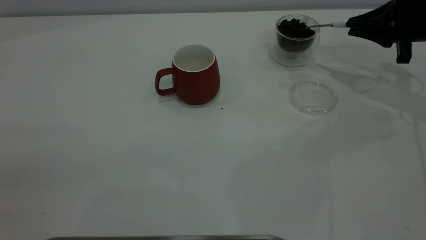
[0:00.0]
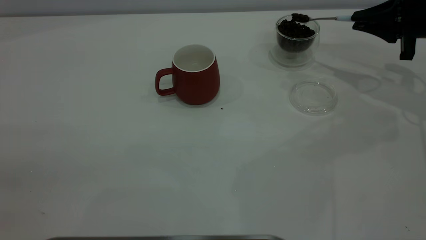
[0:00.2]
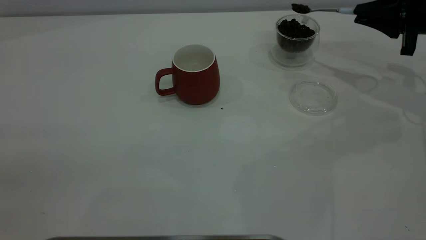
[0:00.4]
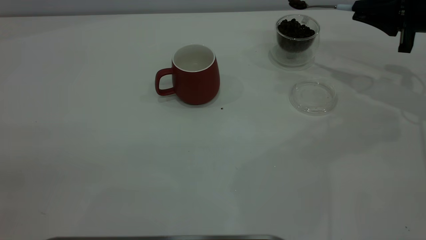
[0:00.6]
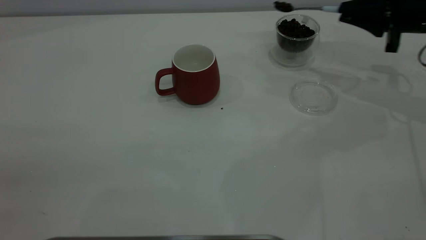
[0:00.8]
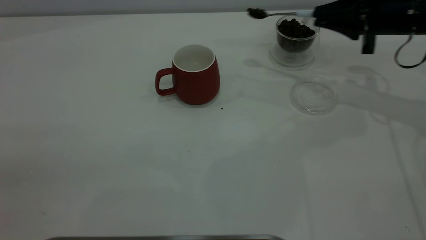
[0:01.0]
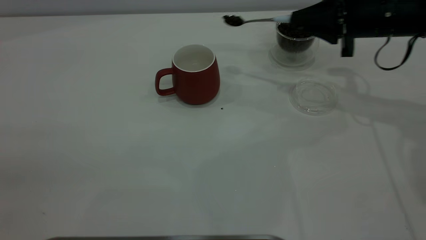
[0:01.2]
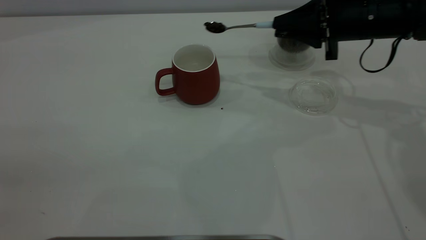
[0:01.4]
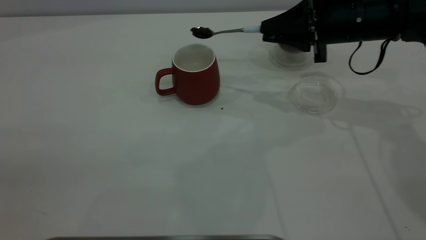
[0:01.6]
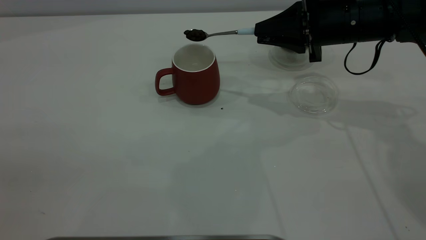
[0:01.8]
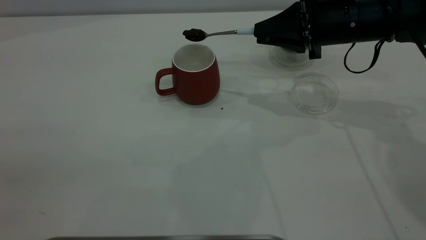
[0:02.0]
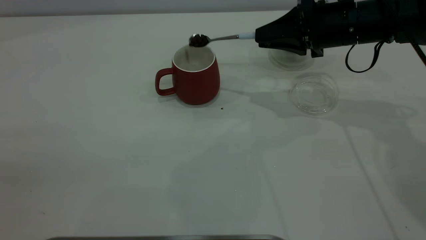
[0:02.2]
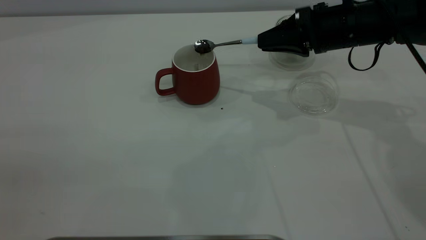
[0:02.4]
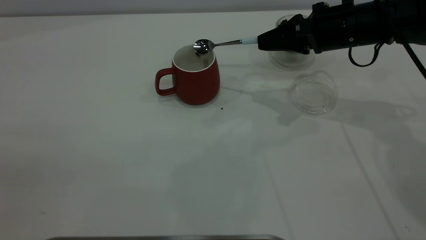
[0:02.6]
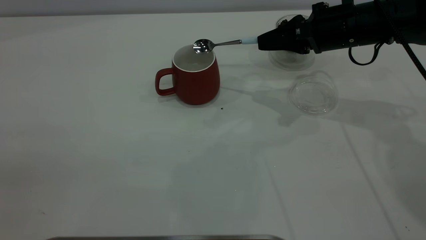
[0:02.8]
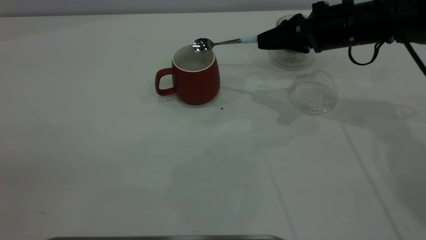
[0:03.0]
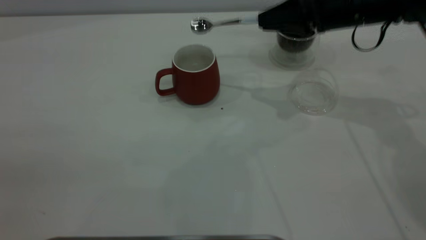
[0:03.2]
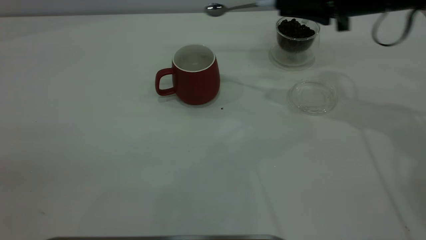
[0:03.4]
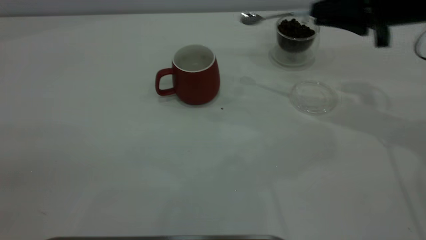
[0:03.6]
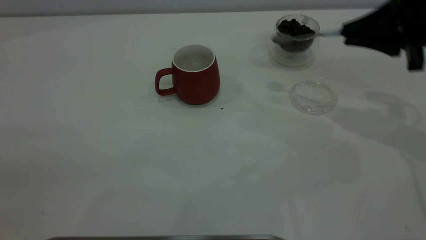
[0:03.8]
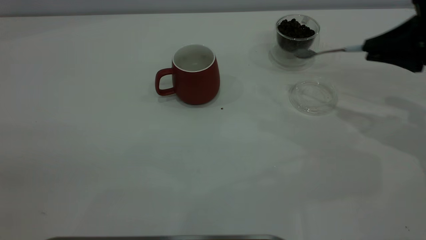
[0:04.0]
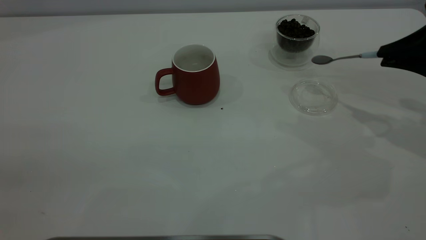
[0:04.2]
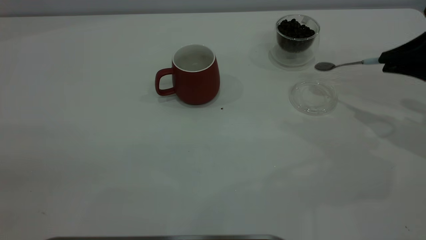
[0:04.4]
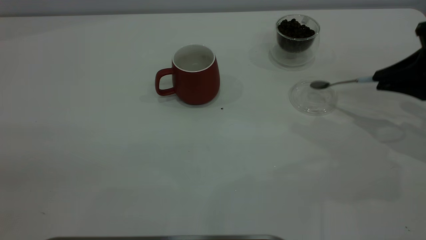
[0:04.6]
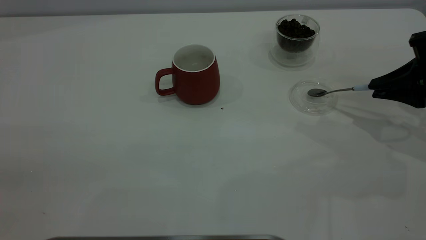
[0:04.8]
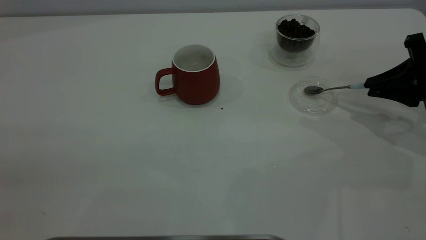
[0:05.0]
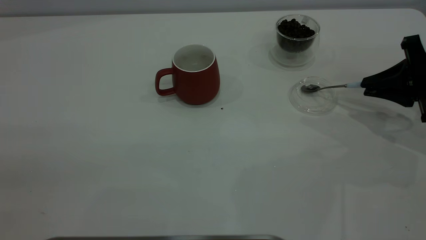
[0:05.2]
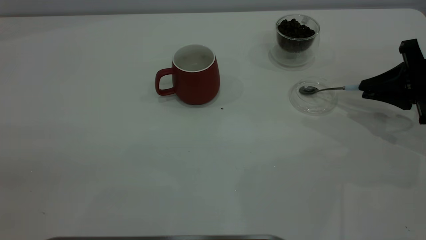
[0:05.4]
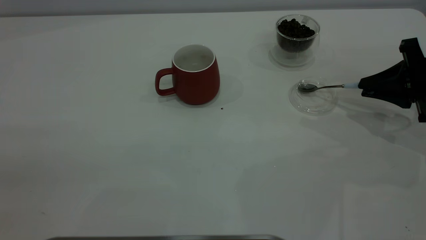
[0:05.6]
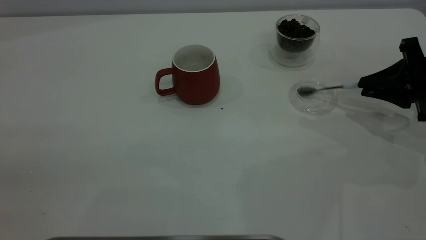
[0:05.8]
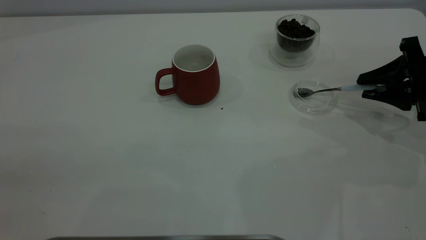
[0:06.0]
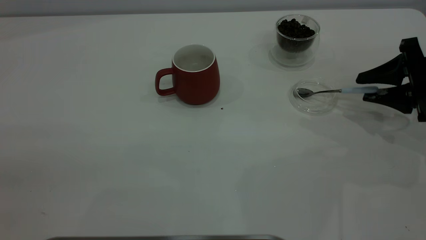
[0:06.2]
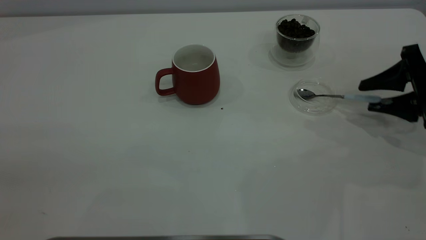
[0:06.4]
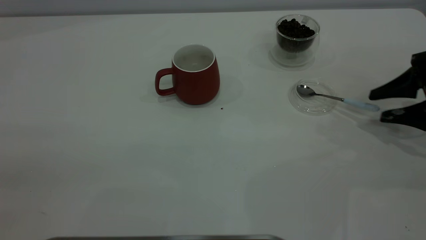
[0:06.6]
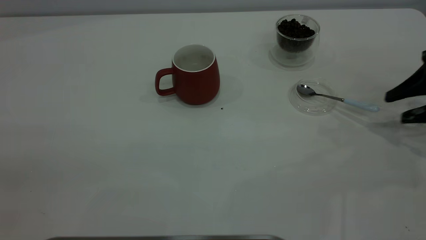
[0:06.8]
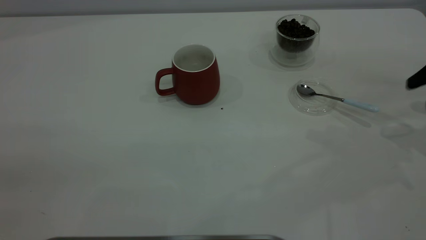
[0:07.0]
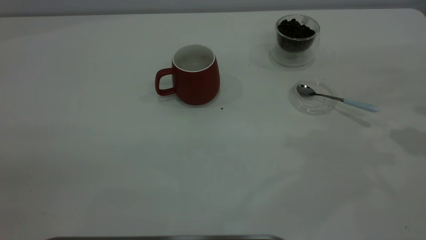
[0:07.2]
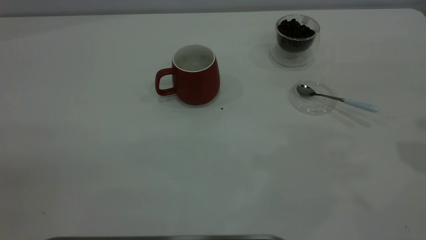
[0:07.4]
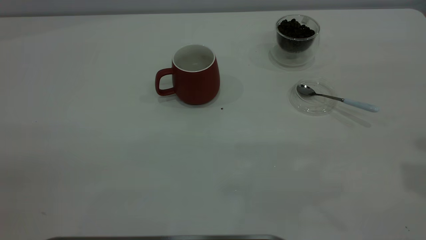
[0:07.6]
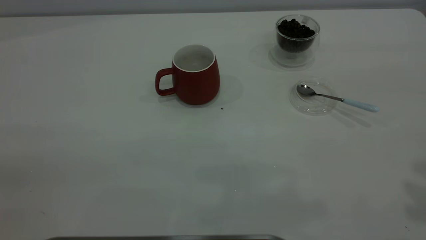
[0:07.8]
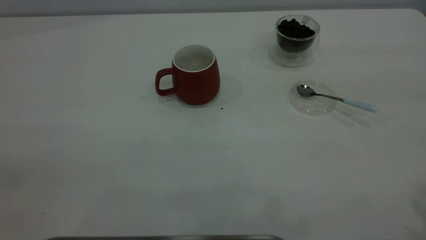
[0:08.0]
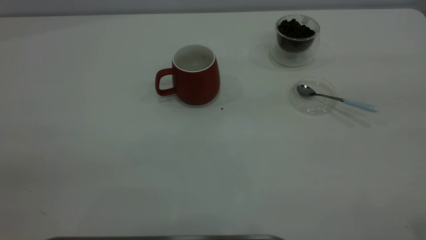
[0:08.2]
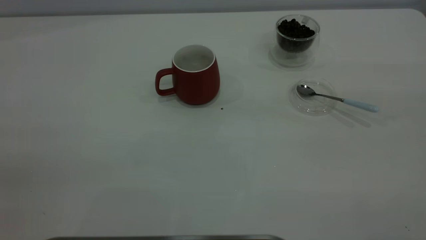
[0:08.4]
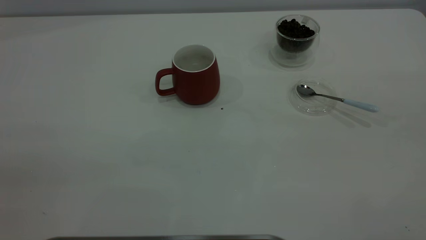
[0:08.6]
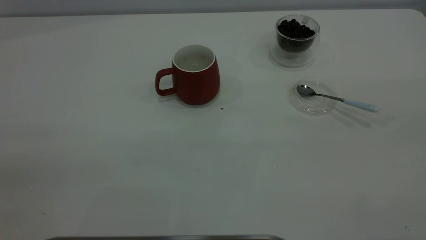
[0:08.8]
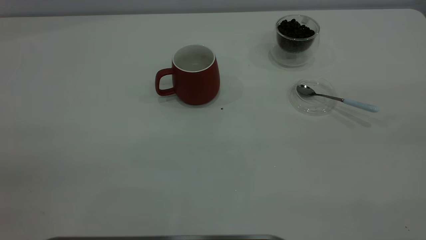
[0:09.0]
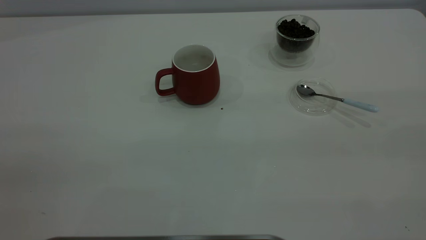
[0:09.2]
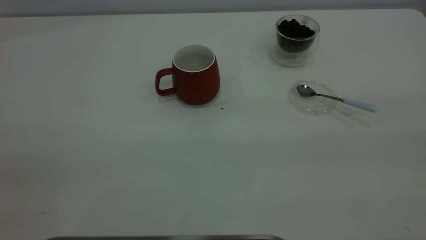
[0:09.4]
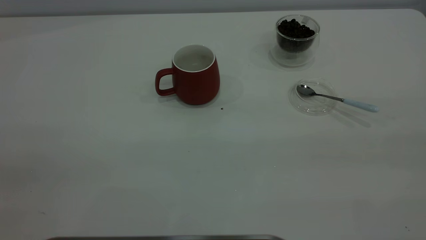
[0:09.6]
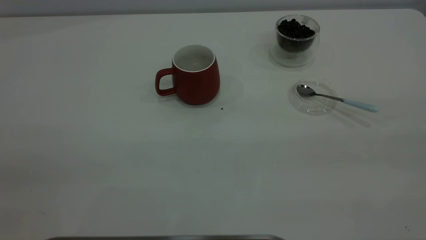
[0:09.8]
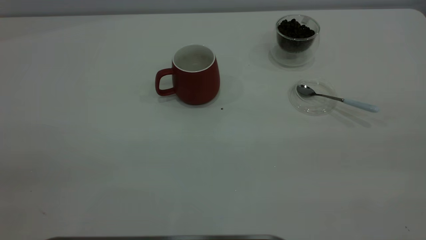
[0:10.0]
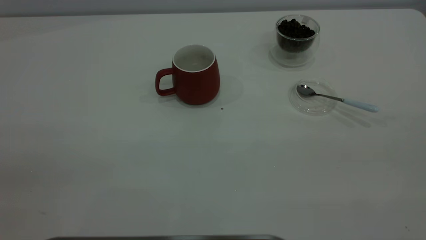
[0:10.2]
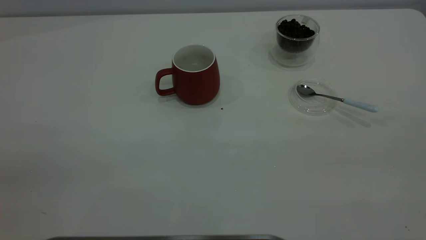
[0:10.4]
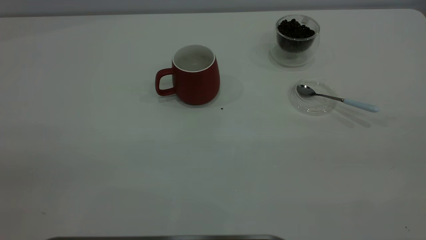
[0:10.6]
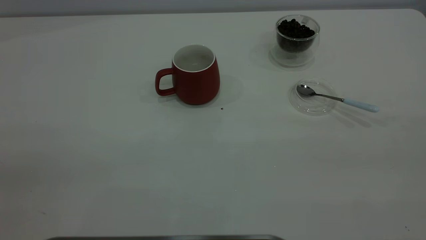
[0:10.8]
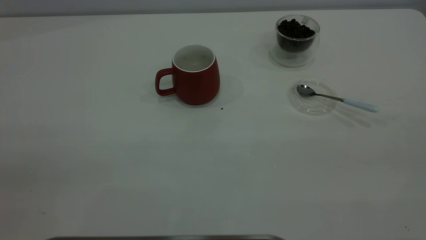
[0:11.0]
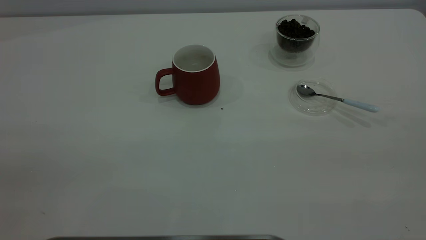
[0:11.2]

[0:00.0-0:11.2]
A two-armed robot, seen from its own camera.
Task of the whole recording: the left gripper place the red cup in the center of the table, the right gripper take the blue spoon from the cup lid and scoop out the coffee beans from the coffee cup and put them into the red cup, the right gripper put the spoon back into the cup lid.
Step, 0:00.0 to 0:03.0: Scoop a spoonful of beans into the cup.
Step, 0:03.4 to 0:06.8: Place the spoon back in its original place.
0:00.0 to 0:01.6: The right gripper travels to the left by about 15 cm.
0:03.2 to 0:04.8: The right gripper shifts some 20 cm to the right, backward and downward.
0:04.8 to 0:06.4: The right gripper opens up.
0:06.4 to 0:08.0: The right gripper travels upward and backward by approximately 35 cm.
